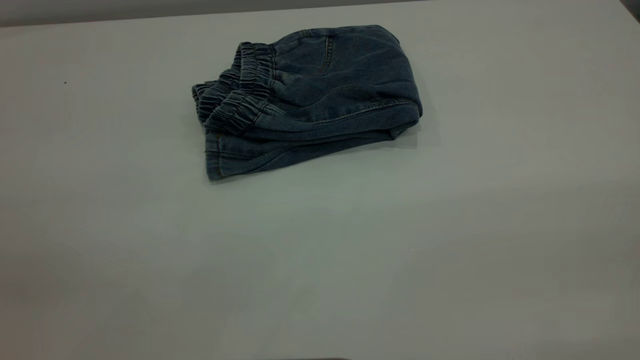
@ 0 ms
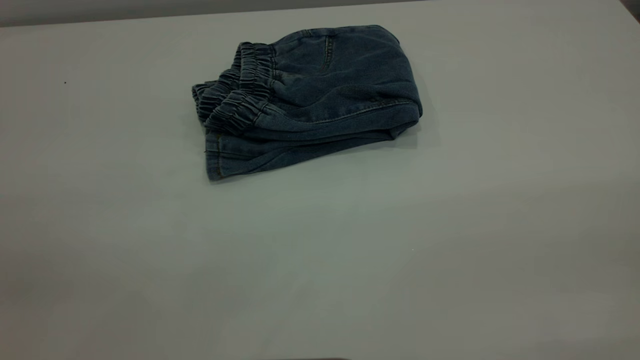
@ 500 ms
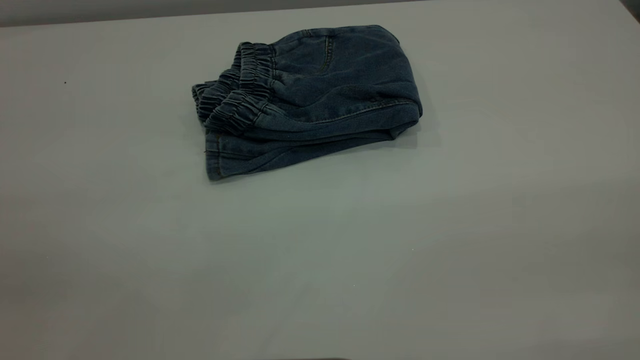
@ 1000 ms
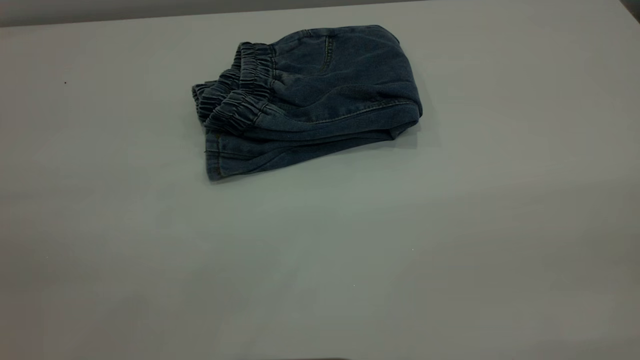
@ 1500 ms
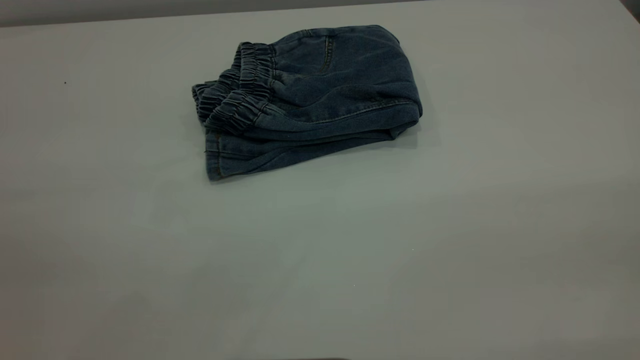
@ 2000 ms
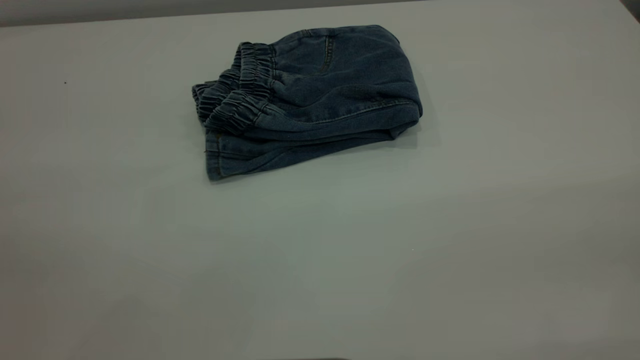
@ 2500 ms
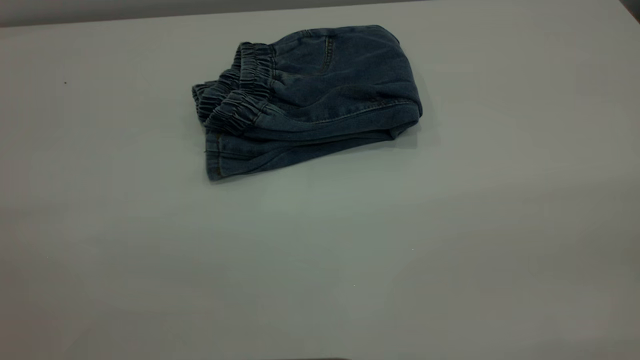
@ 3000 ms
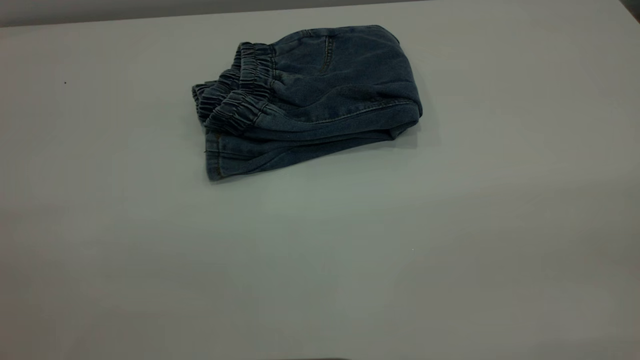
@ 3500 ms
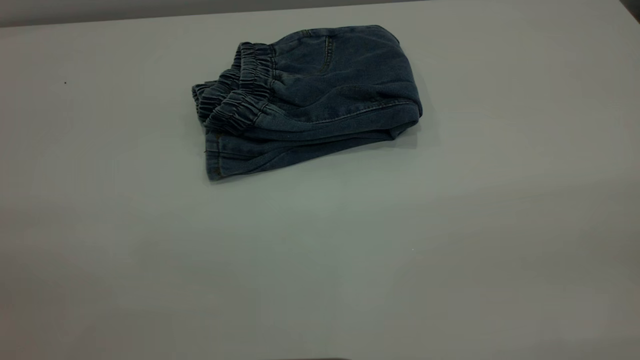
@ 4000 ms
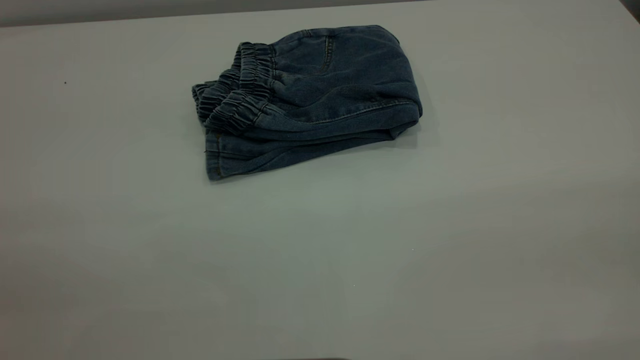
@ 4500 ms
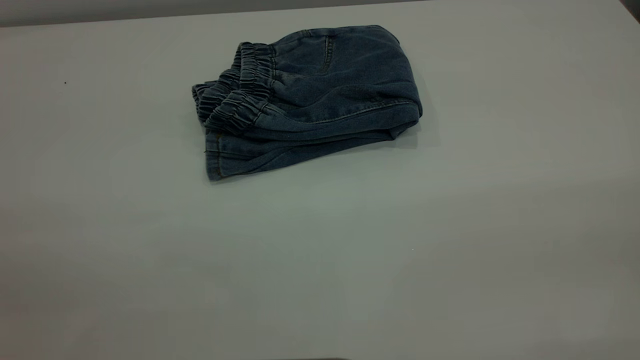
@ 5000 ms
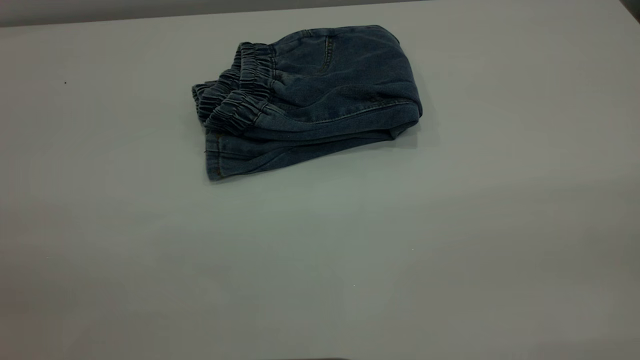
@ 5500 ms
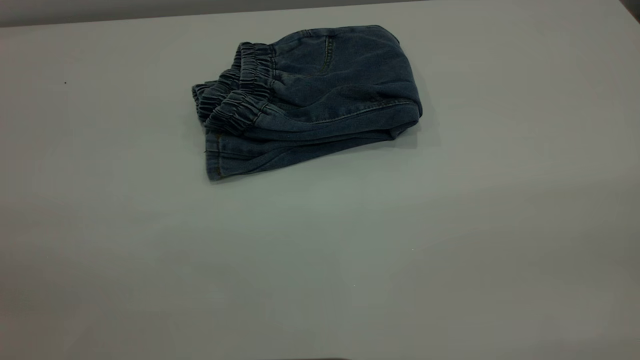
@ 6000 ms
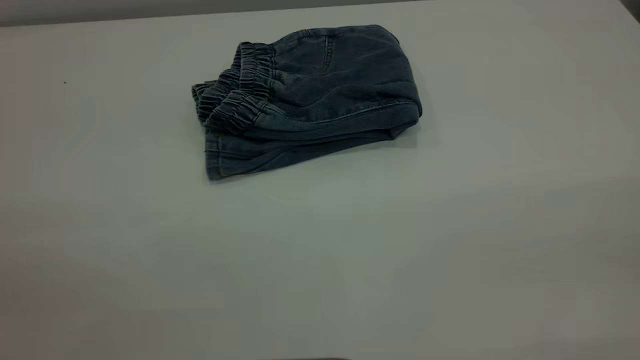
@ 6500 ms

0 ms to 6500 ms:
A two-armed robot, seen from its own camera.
4500 ms to 6500 ms: The two grippers keep their place.
